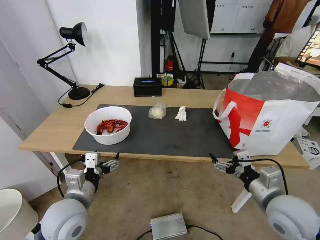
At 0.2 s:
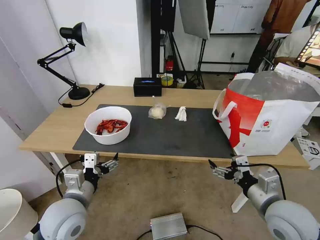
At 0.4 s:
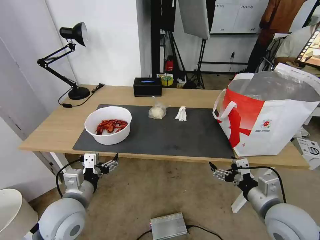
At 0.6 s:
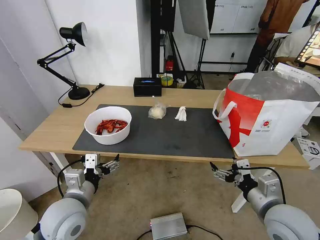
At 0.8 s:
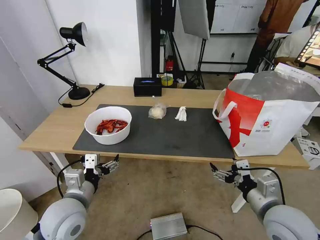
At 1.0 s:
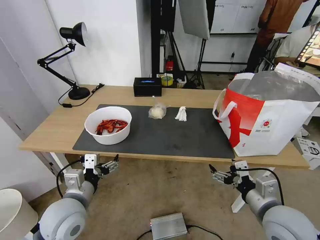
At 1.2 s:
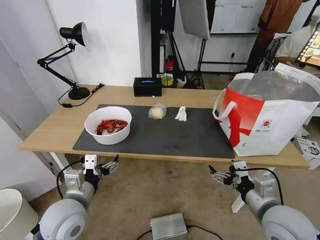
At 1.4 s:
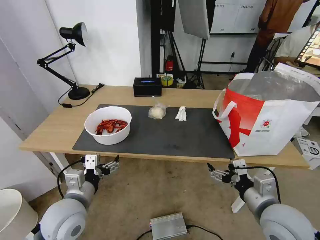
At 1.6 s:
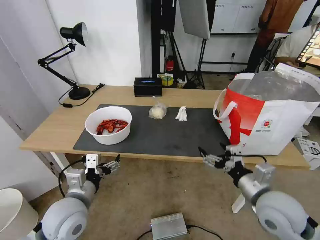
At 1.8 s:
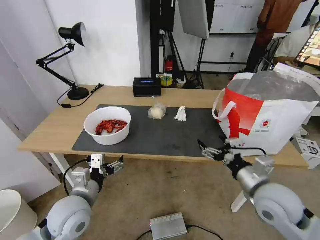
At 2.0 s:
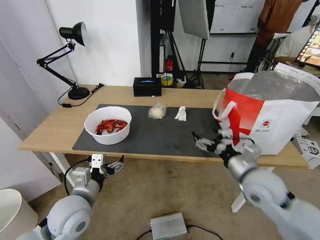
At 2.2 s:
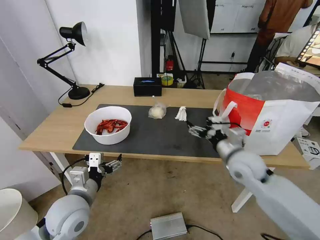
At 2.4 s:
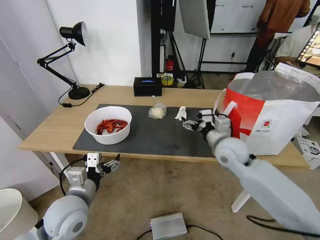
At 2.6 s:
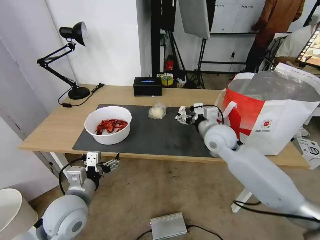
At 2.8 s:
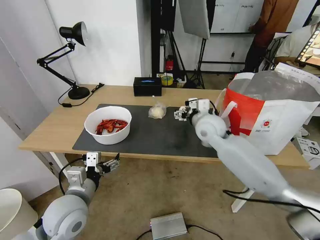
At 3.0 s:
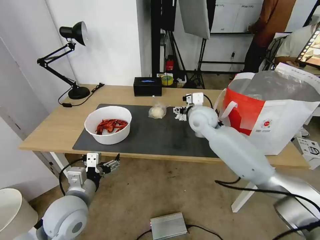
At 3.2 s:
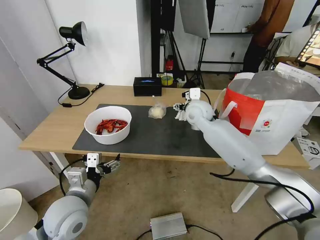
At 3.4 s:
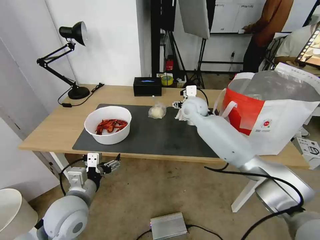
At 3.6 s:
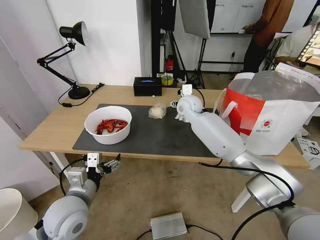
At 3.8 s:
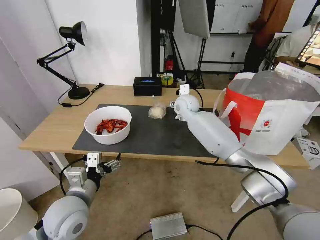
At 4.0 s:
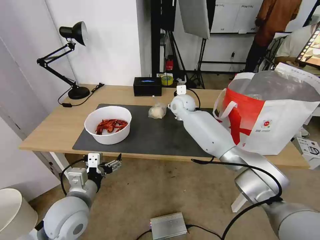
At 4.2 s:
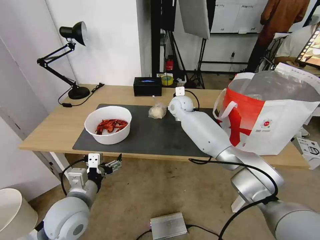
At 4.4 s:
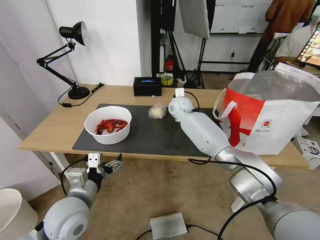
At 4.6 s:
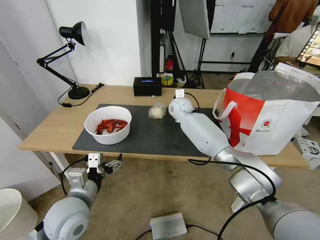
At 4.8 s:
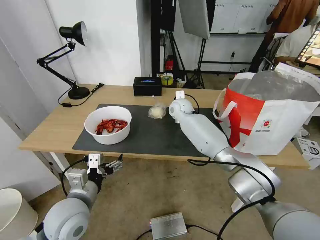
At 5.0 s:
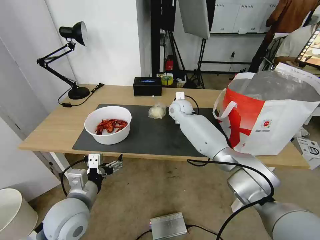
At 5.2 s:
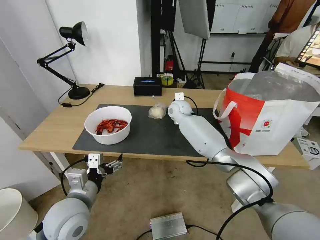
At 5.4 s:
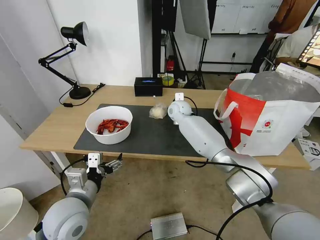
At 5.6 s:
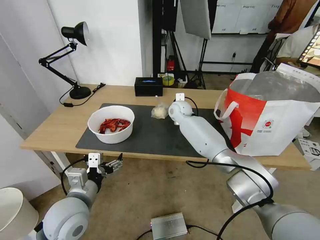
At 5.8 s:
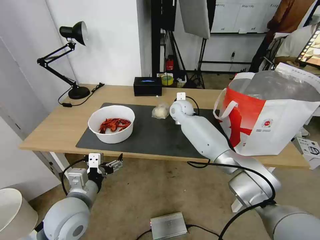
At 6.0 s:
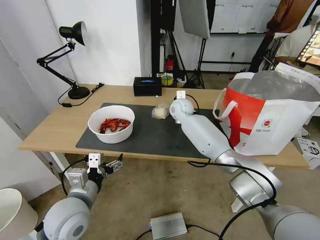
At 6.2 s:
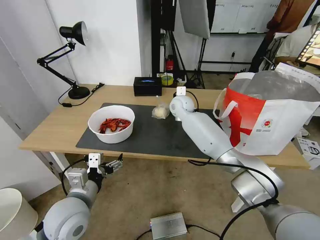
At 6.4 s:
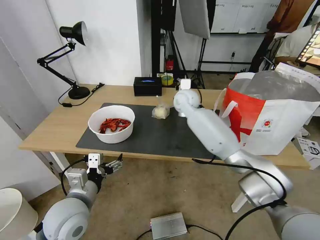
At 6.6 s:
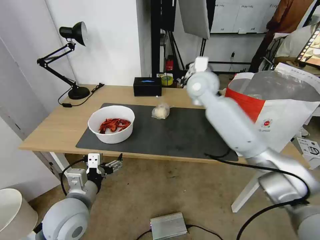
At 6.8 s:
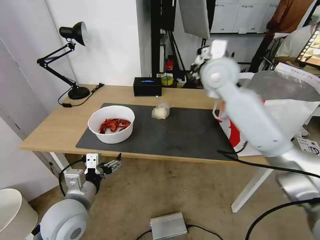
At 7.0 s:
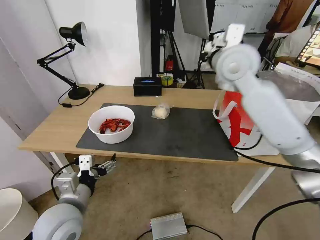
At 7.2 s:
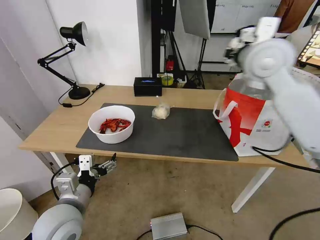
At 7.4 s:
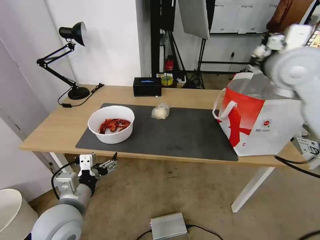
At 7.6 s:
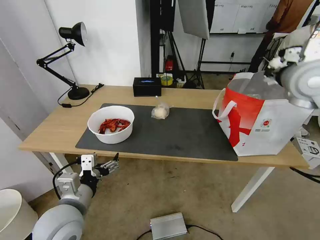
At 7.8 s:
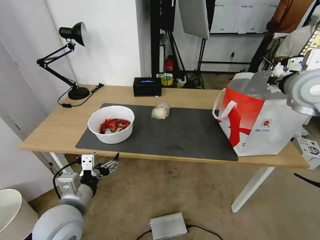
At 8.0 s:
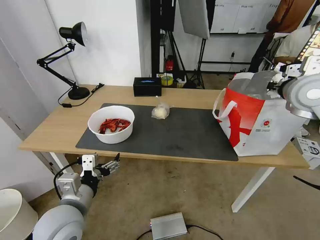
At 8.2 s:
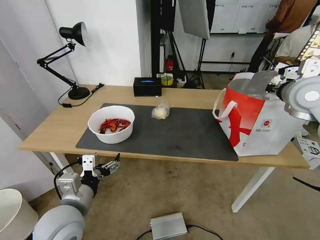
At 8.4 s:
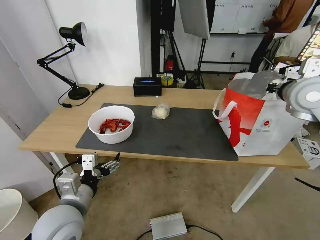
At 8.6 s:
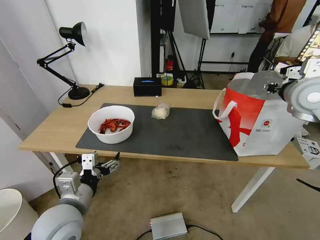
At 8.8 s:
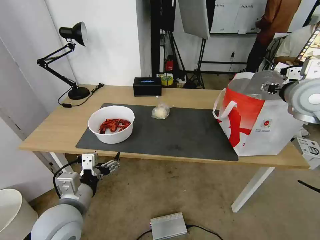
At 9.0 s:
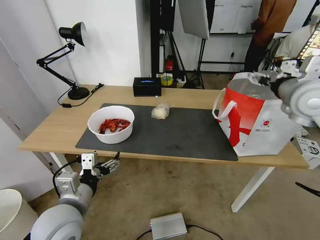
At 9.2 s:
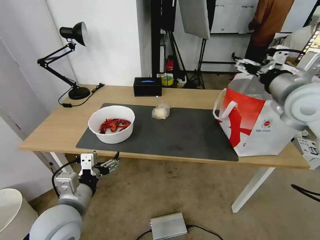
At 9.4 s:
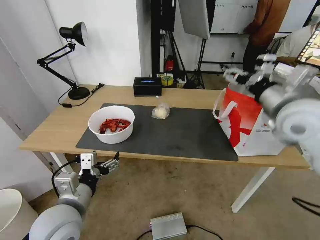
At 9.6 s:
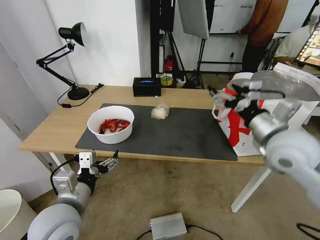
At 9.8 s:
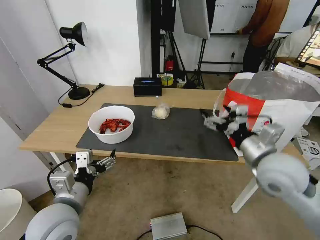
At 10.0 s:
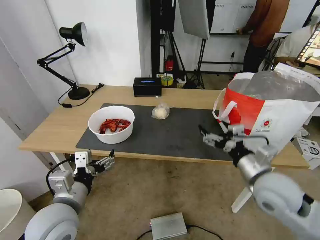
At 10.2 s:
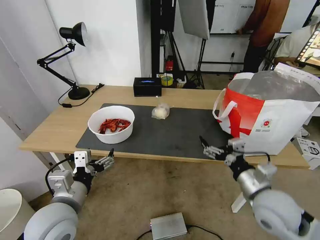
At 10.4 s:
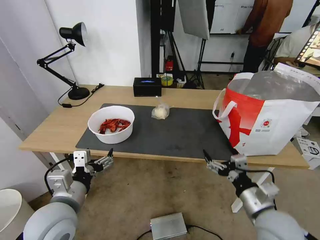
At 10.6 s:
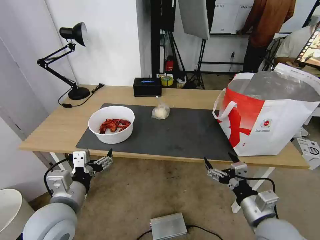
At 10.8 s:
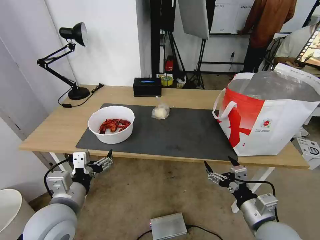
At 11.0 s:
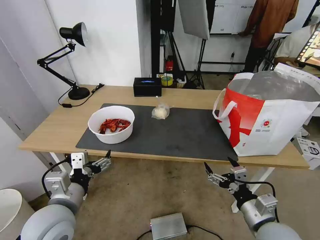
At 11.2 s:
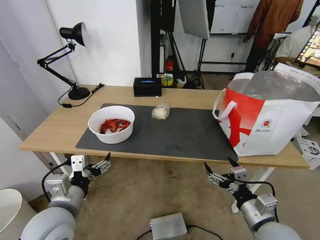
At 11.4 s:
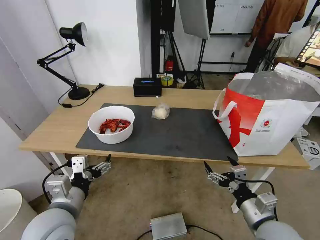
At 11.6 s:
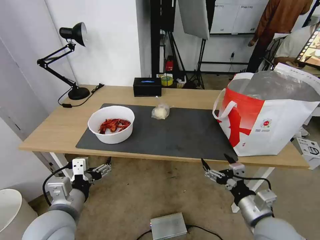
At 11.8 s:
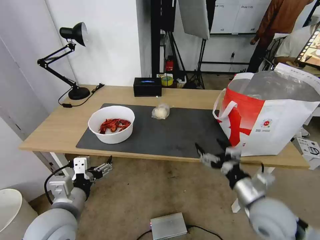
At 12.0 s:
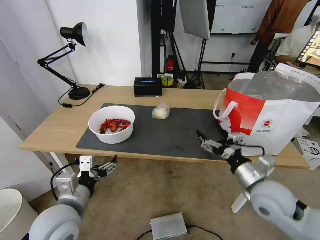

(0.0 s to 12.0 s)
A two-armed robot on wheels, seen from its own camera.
Task of the whole recording: Pick up the trash from the table and place it into the takeout bag.
0.0 s - 1.6 s: The grippers make only small movements.
1.6 s - 3.0 s: The right gripper goes approximately 30 cm forward and to the left.
3.0 s - 4.4 s: The right gripper is displaced forward and to the left by some 15 cm.
4.4 s - 6.0 s: The right gripper closes its fingers.
6.0 s - 7.6 s: The right gripper travels to the right, upward and backward by some 40 cm.
7.6 s - 9.0 s: The right gripper opens.
9.0 s - 10.4 s: The right gripper shifts some 30 cm downward and backward.
10.4 s - 12.0 s: The right gripper heads forward, covering roughly 5 cm.

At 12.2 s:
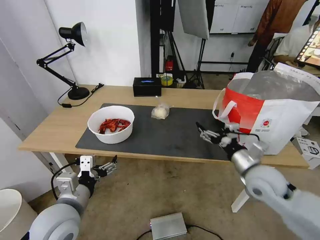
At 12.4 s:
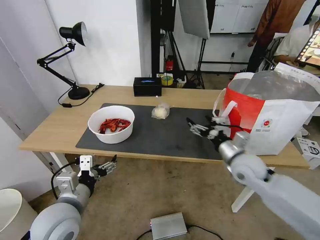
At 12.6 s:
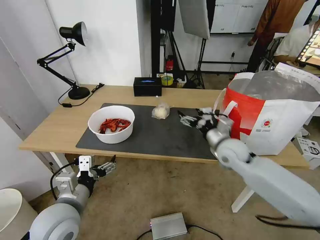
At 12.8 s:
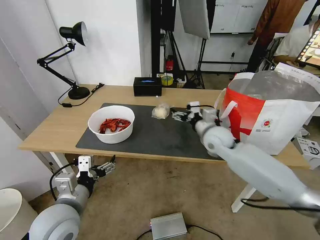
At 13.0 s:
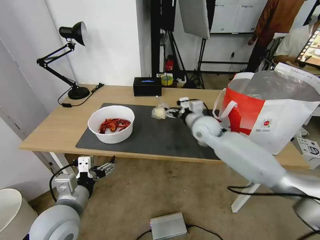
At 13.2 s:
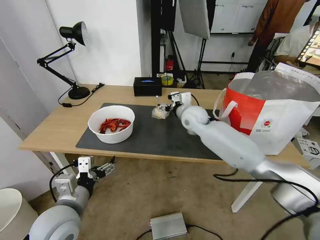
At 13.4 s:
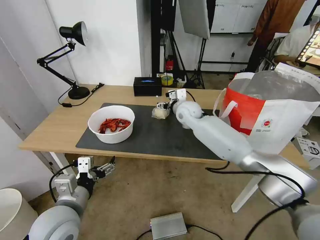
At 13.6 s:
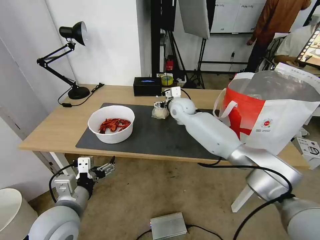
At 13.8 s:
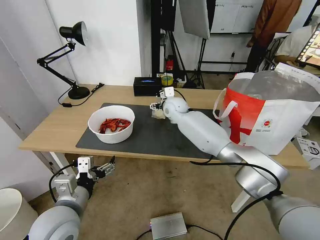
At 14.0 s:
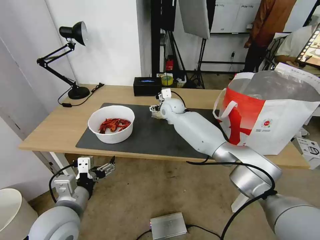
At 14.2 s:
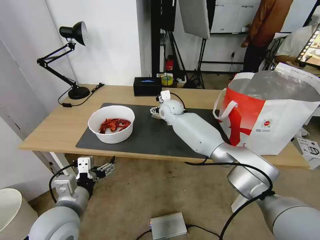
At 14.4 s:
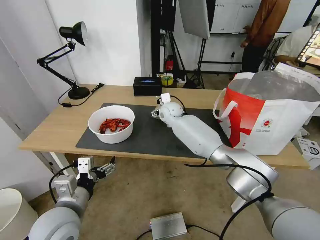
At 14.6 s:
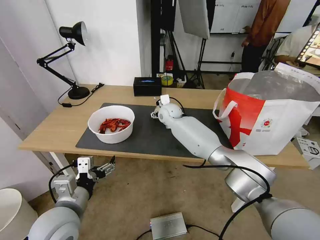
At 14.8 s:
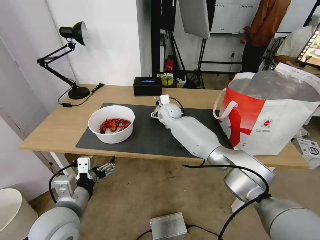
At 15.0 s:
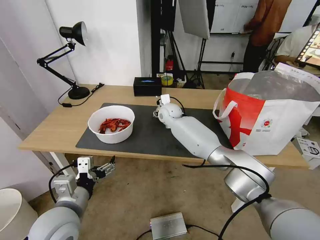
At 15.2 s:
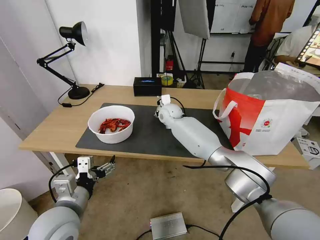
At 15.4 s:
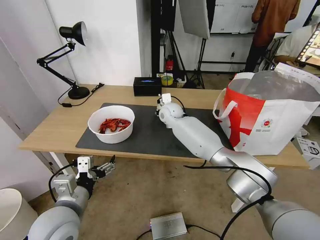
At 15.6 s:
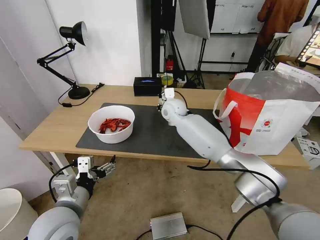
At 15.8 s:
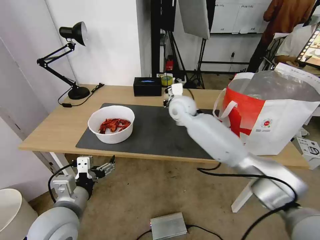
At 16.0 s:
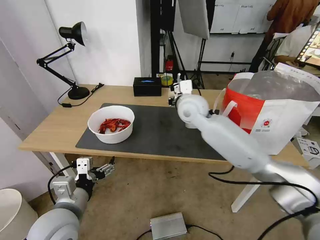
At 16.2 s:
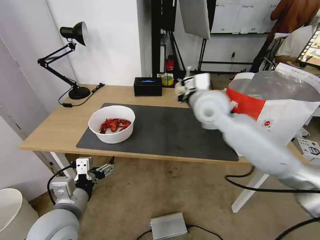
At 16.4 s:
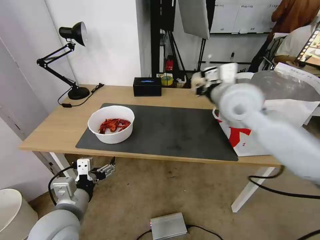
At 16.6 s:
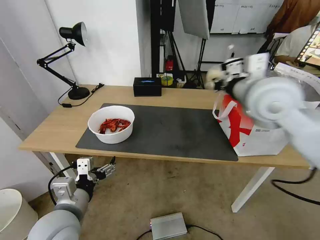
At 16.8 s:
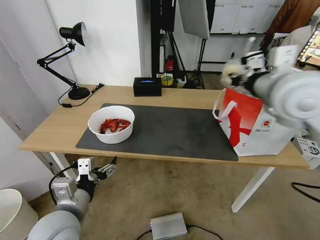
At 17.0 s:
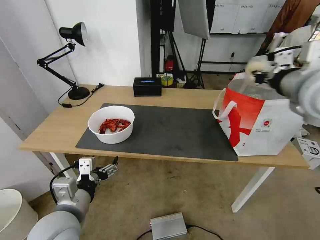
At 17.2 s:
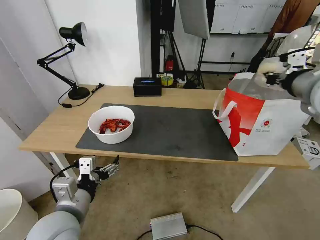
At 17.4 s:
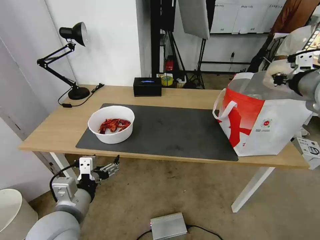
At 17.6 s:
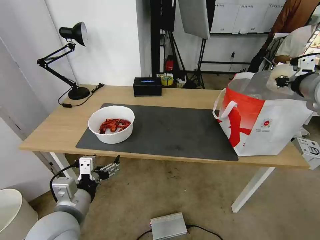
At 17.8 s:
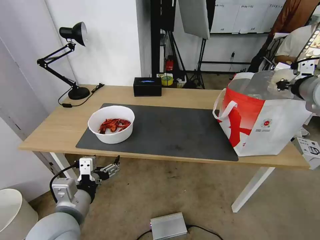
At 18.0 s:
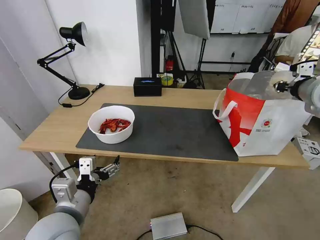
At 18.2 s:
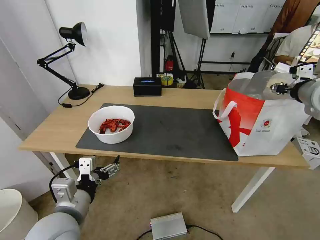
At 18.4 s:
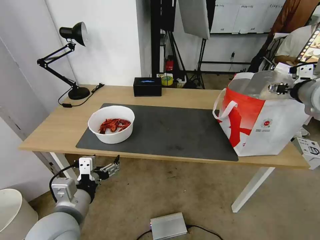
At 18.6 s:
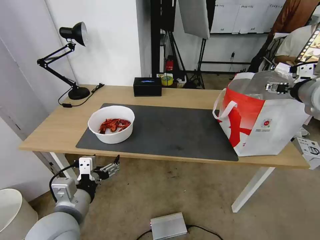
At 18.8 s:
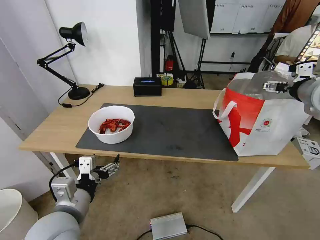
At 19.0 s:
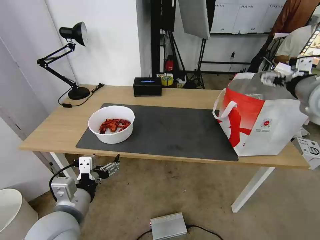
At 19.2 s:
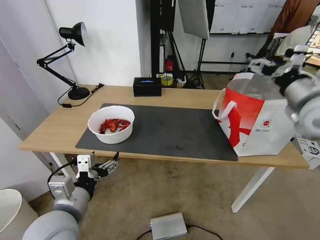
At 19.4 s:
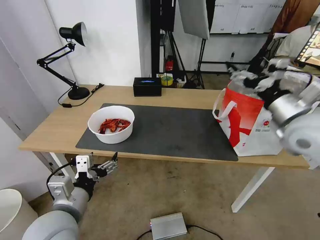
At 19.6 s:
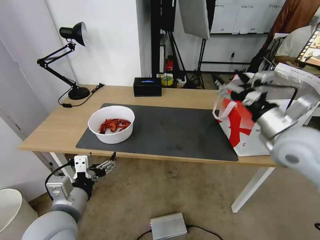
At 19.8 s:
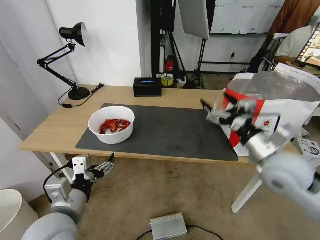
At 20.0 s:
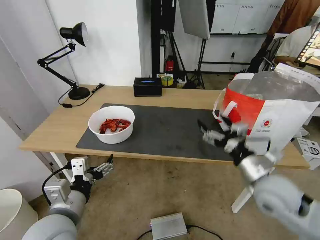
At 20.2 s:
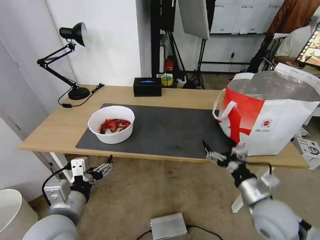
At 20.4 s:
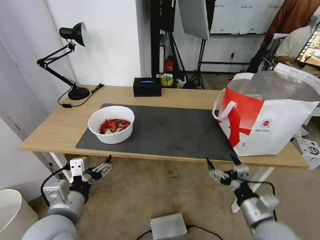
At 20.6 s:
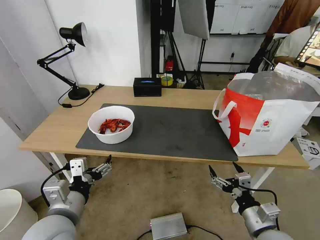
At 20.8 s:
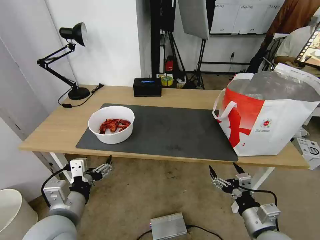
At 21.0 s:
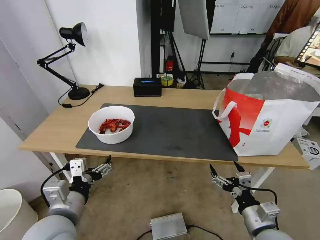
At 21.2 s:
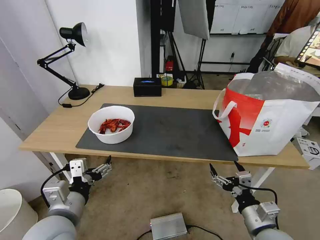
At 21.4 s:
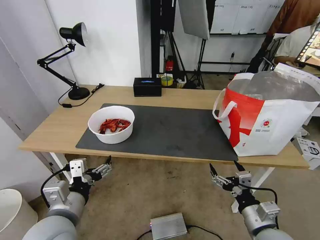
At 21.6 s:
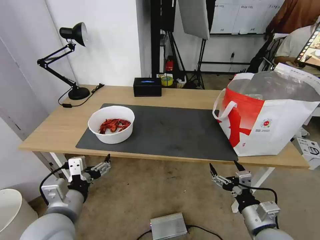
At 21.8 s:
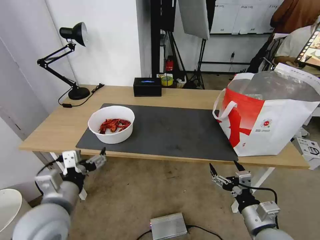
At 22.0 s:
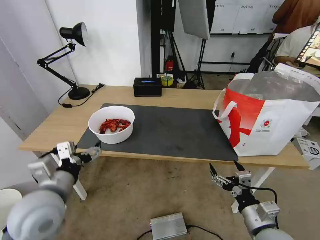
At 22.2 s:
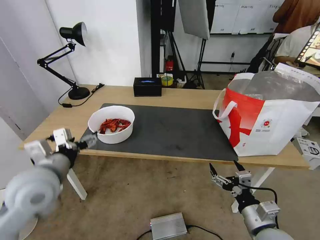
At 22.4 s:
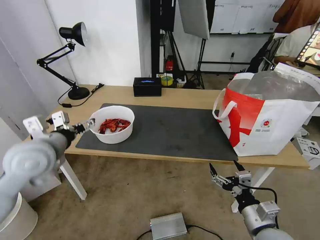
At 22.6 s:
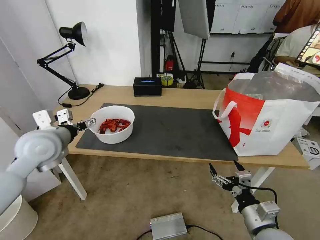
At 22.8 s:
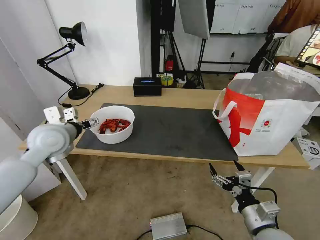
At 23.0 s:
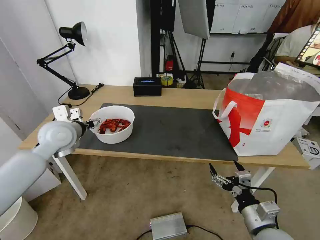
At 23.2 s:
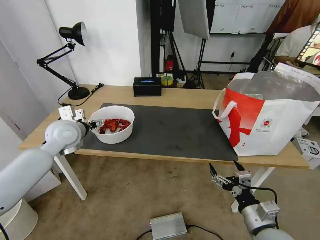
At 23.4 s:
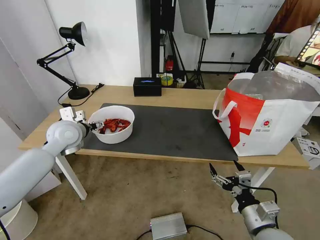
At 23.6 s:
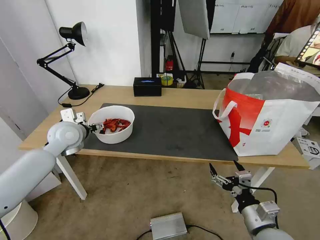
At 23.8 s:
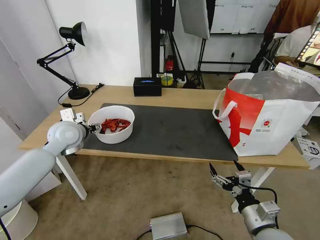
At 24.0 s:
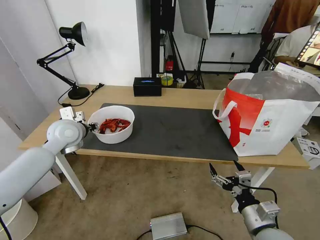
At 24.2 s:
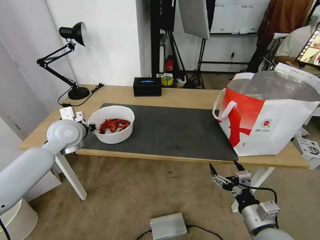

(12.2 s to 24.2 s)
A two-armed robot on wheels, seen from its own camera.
Task of the whole recording: Pick up the trash from the table and place it into the takeout bag.
12.2 s - 13.8 s: The right gripper heads forward and to the left, covering roughly 35 cm.
13.8 s - 15.2 s: The right gripper closes up.
15.2 s - 16.6 s: The right gripper goes approximately 35 cm upward, backward and to the right, and closes its fingers.
16.6 s - 18.2 s: The right gripper moves to the right, about 15 cm, and opens.
18.2 s - 19.8 s: The right gripper moves downward, backward and to the left, approximately 20 cm, and opens up.
19.8 s - 21.2 s: The right gripper moves downward and backward, roughly 20 cm.
21.2 s - 22.6 s: The left gripper heads forward, upward and to the left, covering approximately 20 cm.
22.6 s - 24.2 s: The left gripper heads forward, covering roughly 10 cm, and closes its fingers.
